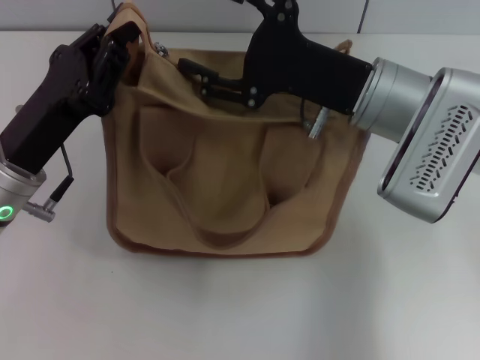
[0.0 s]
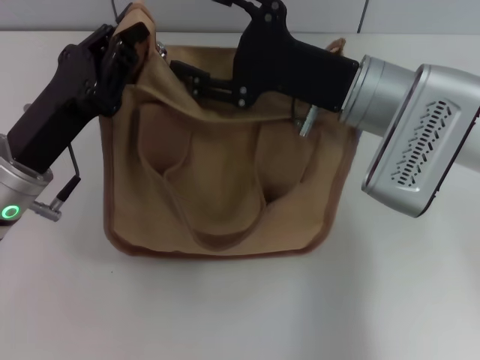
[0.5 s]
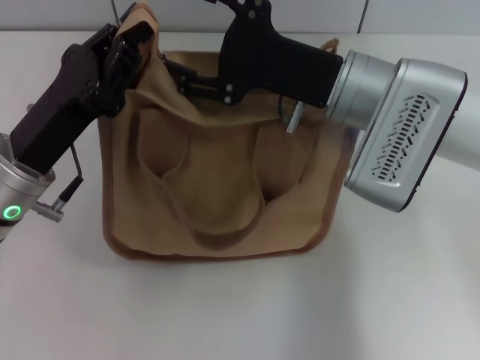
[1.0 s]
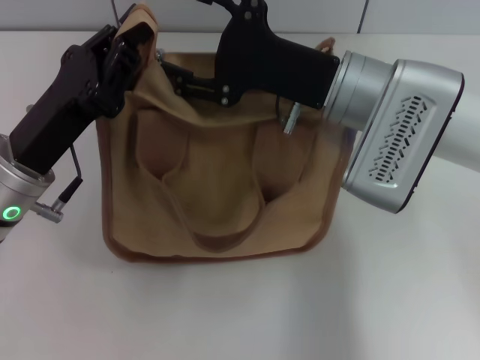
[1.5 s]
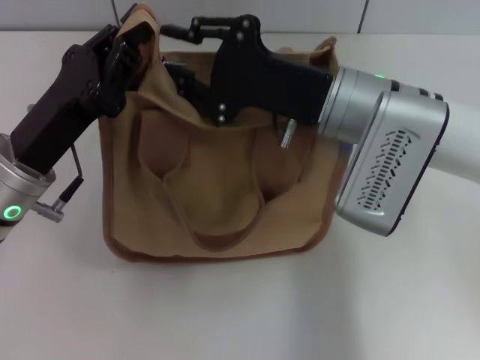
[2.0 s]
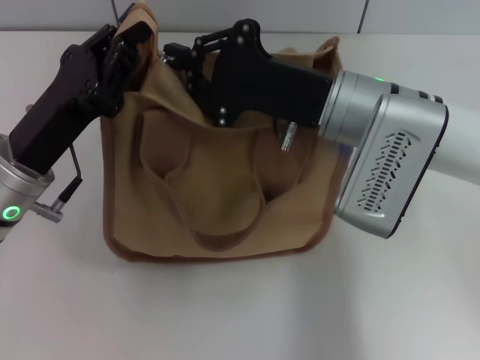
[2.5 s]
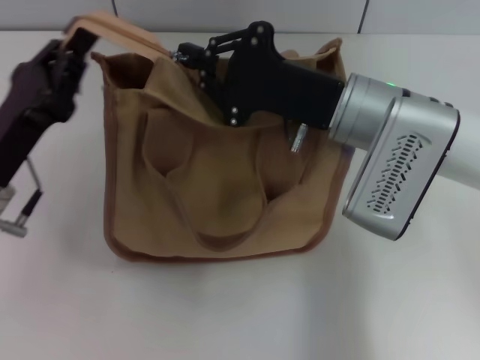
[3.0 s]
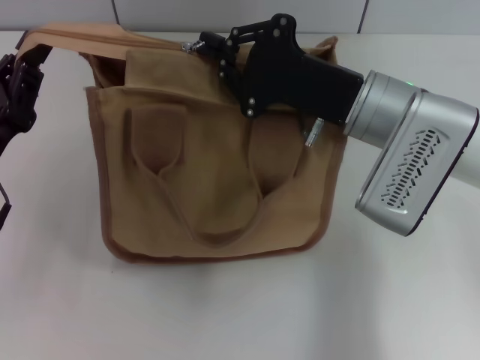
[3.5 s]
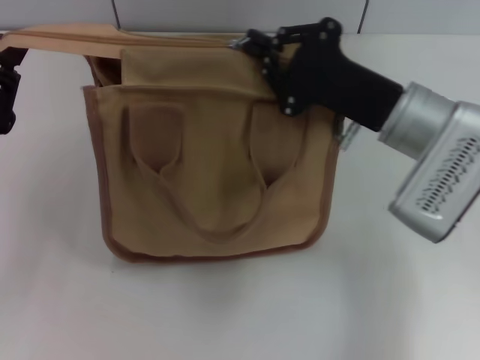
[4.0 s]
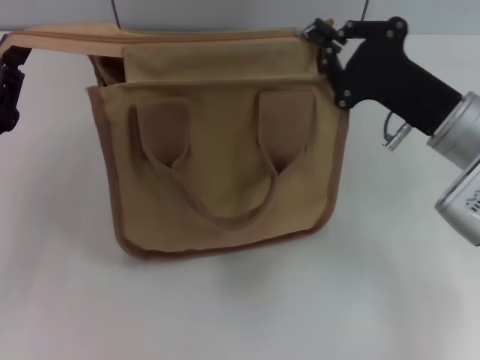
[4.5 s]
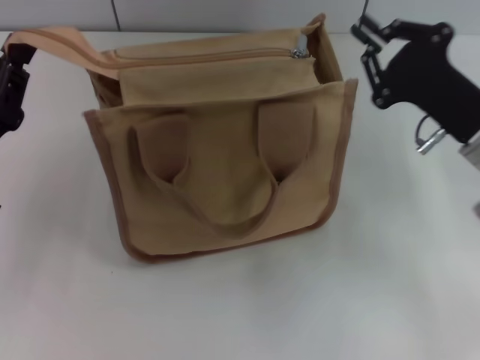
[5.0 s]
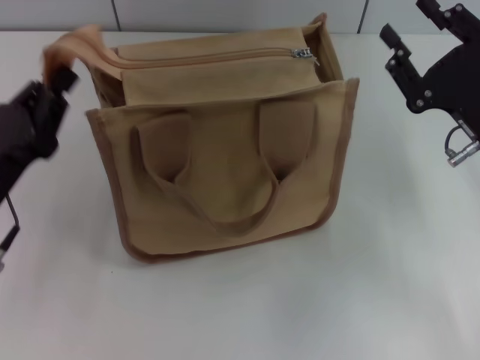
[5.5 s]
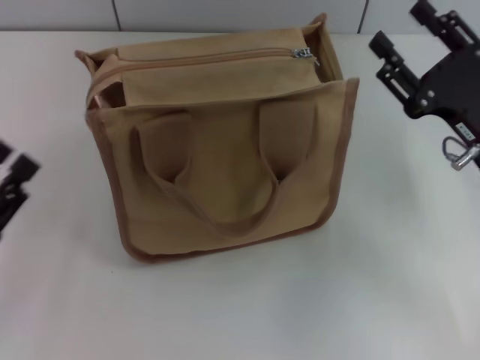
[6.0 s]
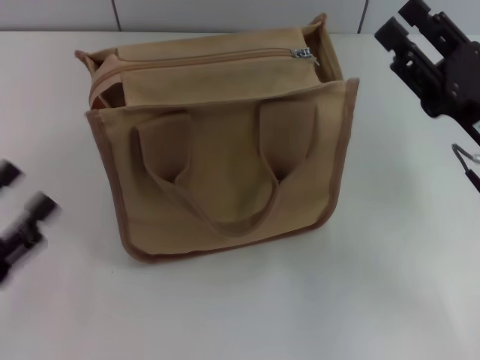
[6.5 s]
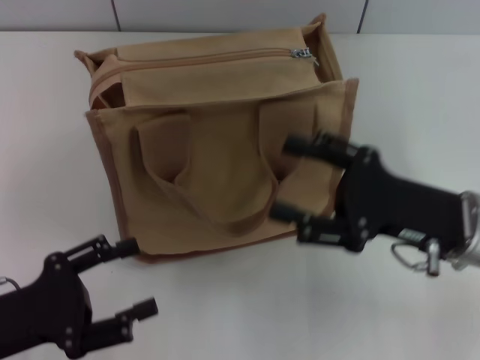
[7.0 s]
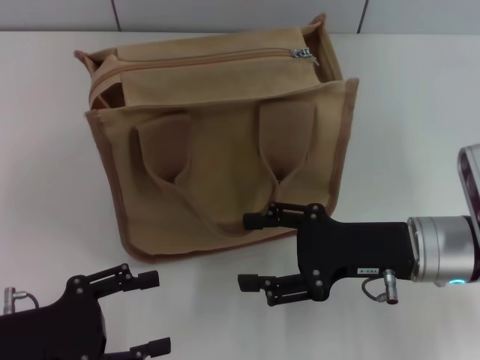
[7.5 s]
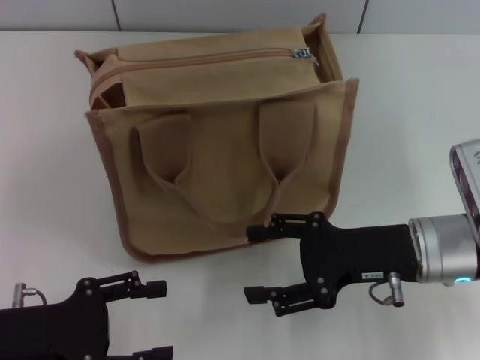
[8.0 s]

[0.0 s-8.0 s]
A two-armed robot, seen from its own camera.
Step, 0.0 to 4.5 s: Pull up the zipper with your right hand.
Step, 5.0 to 5.5 s: Grab the zipper with your left hand.
2.0 to 4.0 s: The right gripper goes approximately 5 cm to the right, and closes up, while the left gripper shifts about 5 cm to the left.
4.0 to 6.0 s: The right gripper heads to the right, covering about 10 cm, and opens up. Meanwhile the left gripper is displaced backward by some 10 cm, and opens up.
6.0 to 8.0 s: The right gripper heads to the left, covering approximately 5 cm. Meanwhile the left gripper opens.

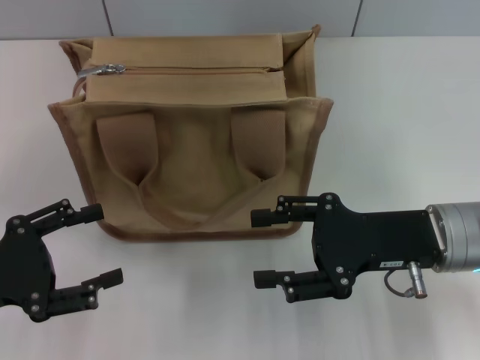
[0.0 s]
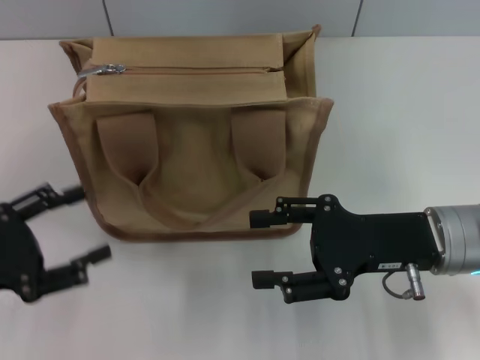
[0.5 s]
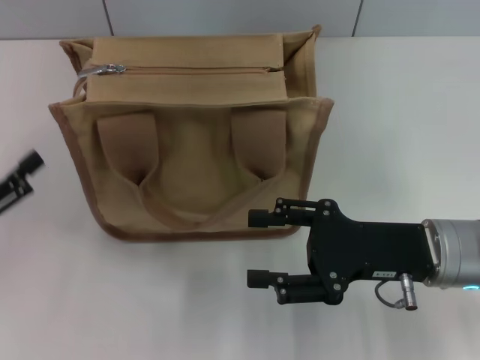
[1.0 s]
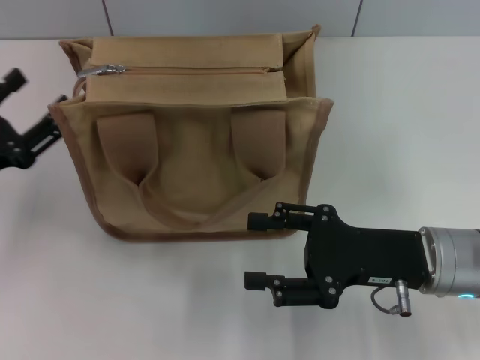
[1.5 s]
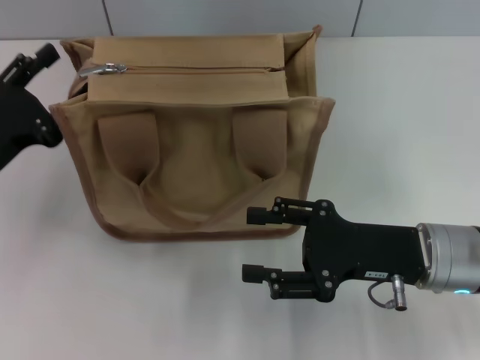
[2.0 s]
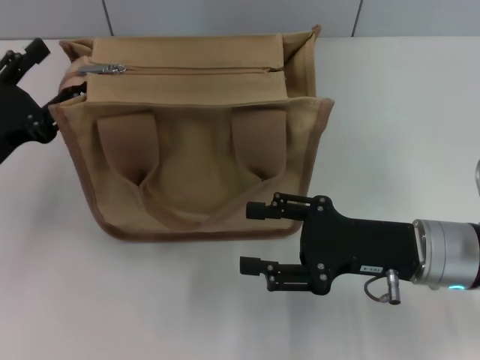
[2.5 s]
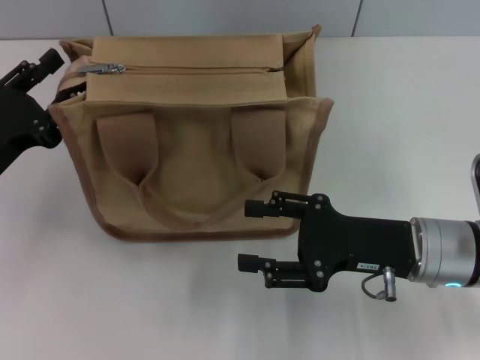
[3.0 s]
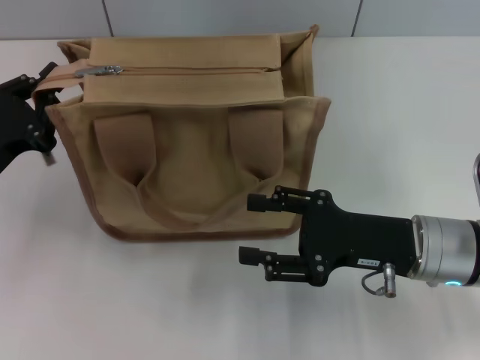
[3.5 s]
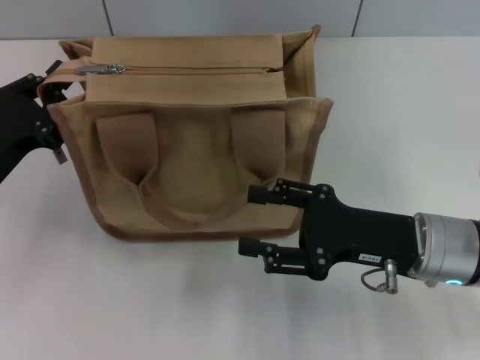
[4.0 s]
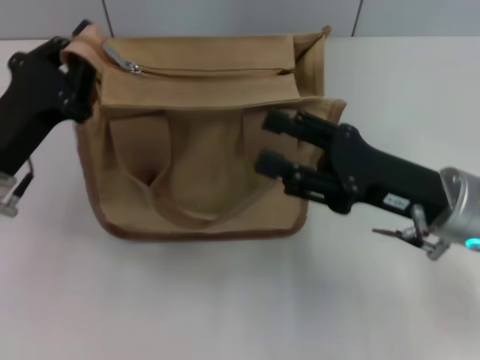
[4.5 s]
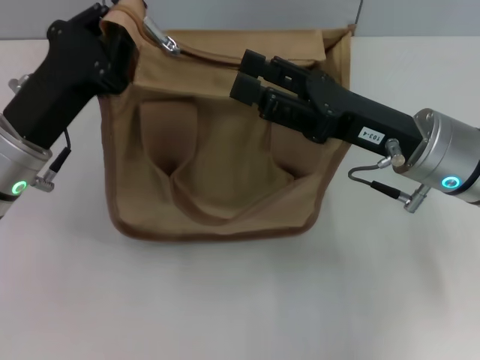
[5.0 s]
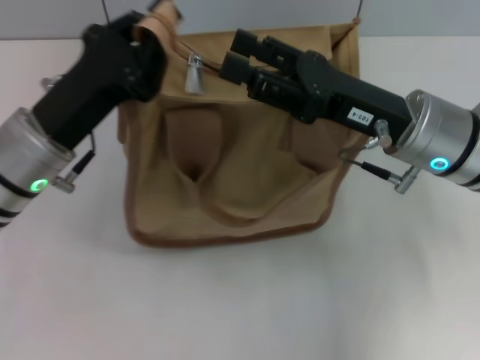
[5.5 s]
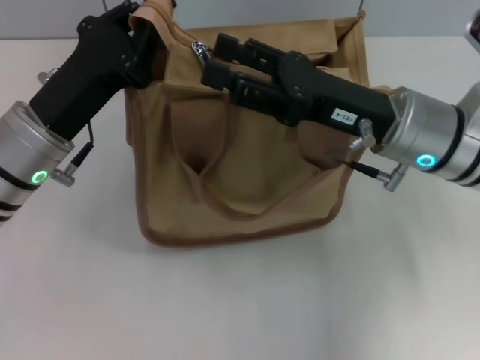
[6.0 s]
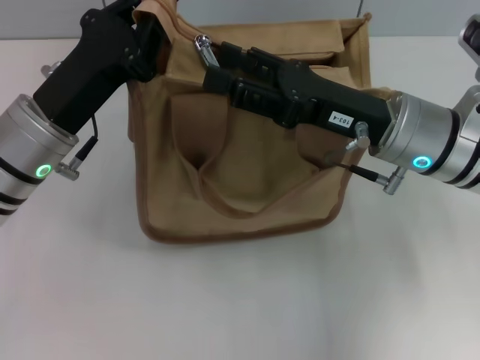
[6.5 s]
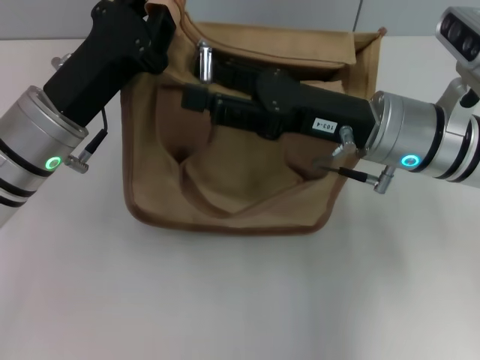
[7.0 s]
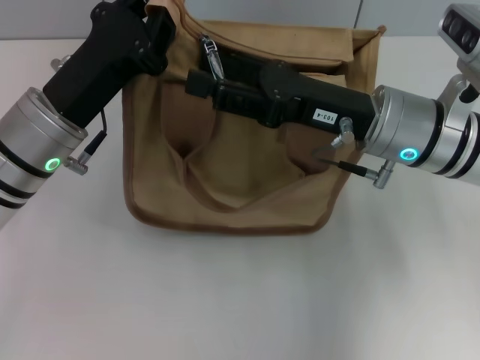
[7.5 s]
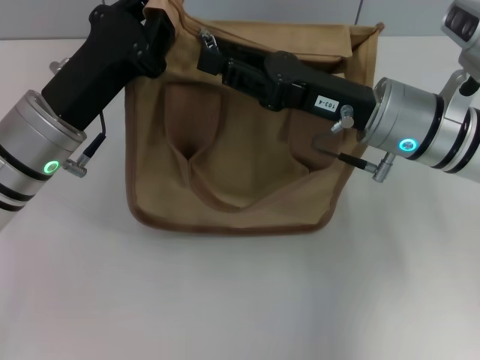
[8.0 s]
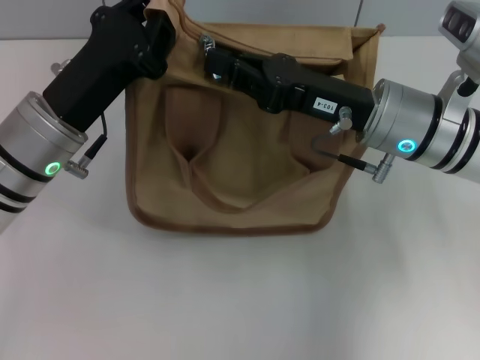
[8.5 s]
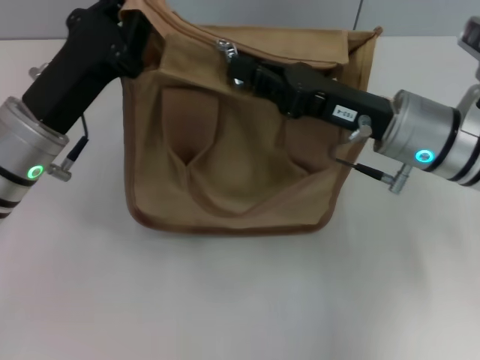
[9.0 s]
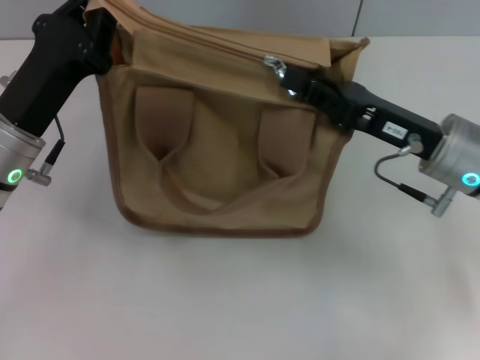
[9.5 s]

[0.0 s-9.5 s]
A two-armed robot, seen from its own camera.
0.0 to 2.0 s: The left gripper heads forward, covering roughly 10 cm.
2.0 to 4.0 s: The left gripper closes its fingers.
4.0 to 5.5 s: The left gripper travels to the right by about 10 cm; the right gripper goes some 10 cm forward and upward.
7.5 to 9.5 s: The right gripper heads to the right, covering about 5 cm, and closes up.

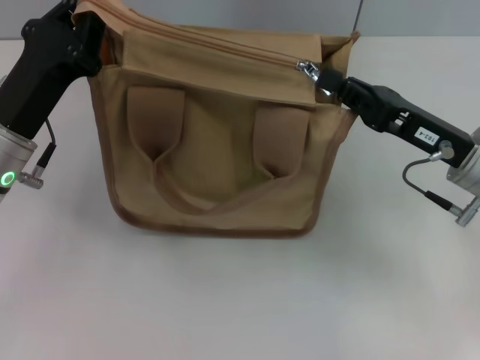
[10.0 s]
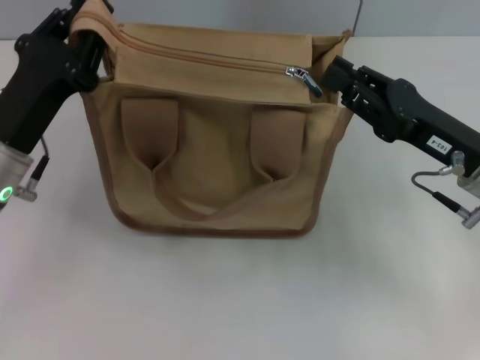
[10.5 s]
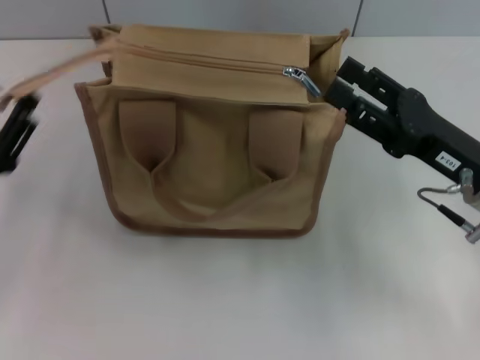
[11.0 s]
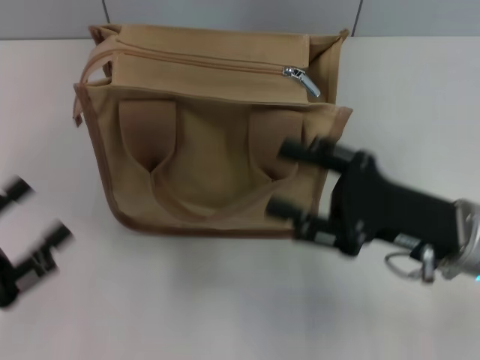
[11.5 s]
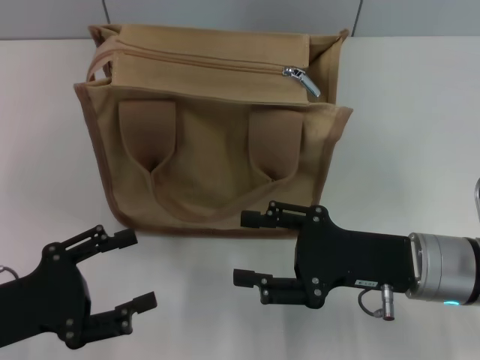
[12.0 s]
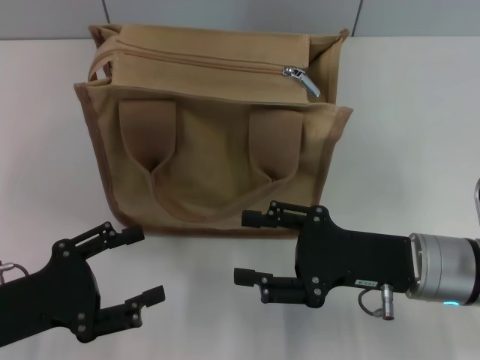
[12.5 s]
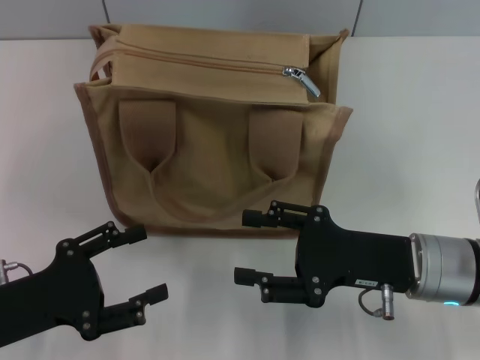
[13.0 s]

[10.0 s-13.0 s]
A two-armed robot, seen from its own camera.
10.0 to 11.5 s: The left gripper travels backward and to the left by approximately 20 cm, and opens its fingers, while the right gripper moves backward, about 5 cm, and opens up.
11.5 to 13.0 s: The left gripper ends up about 5 cm from where it was.
